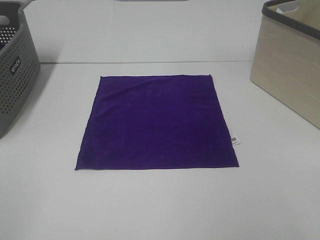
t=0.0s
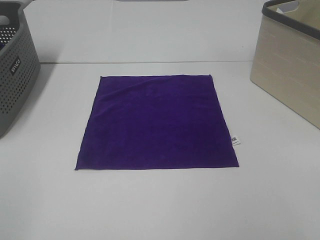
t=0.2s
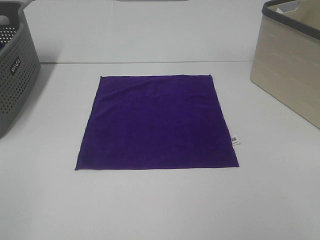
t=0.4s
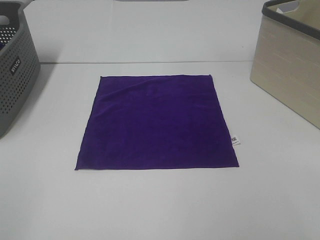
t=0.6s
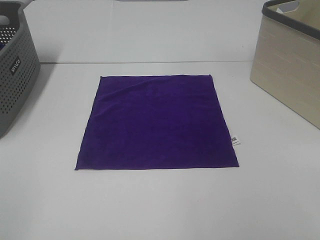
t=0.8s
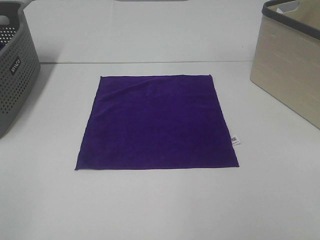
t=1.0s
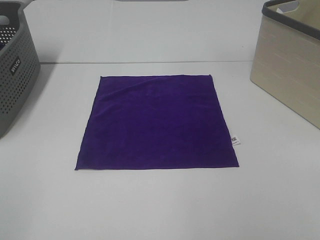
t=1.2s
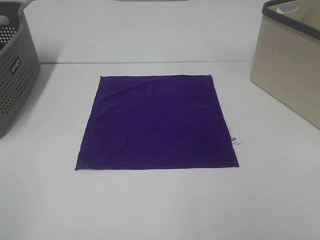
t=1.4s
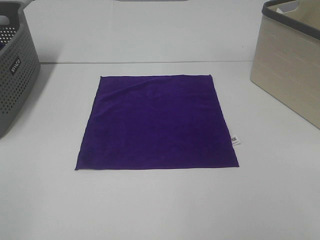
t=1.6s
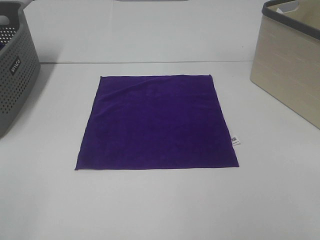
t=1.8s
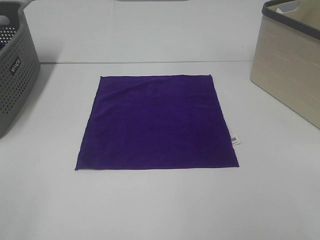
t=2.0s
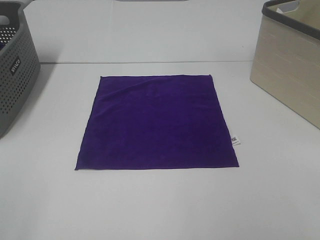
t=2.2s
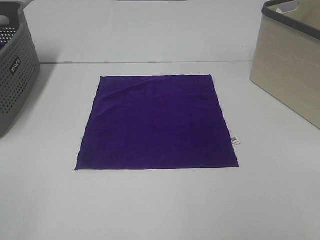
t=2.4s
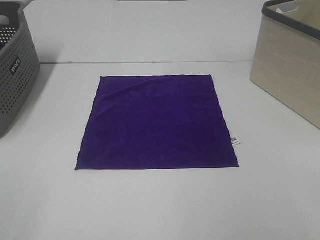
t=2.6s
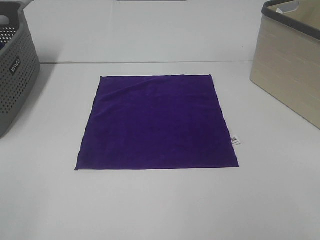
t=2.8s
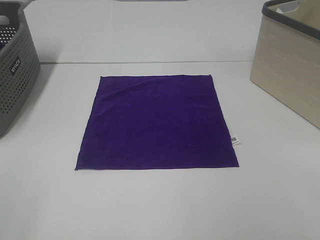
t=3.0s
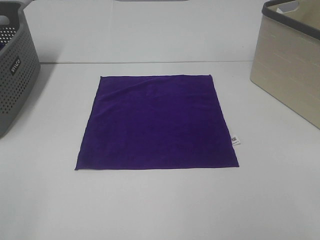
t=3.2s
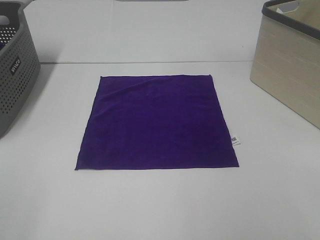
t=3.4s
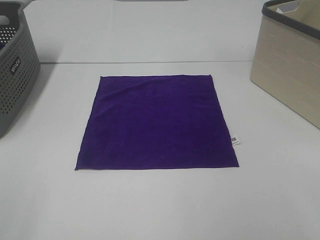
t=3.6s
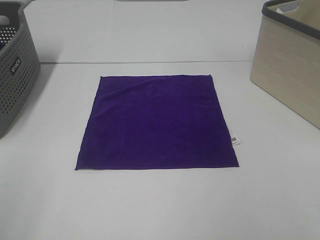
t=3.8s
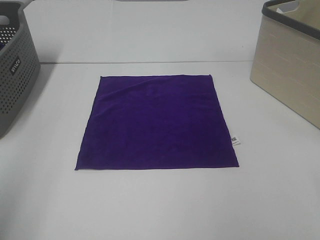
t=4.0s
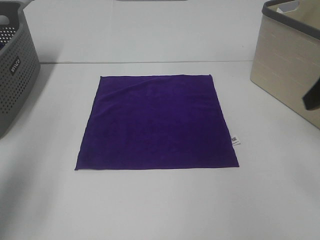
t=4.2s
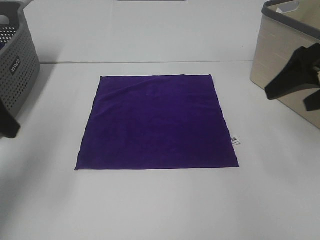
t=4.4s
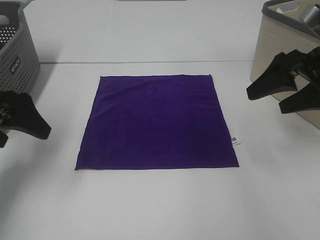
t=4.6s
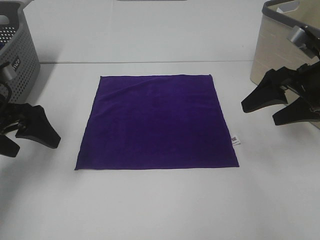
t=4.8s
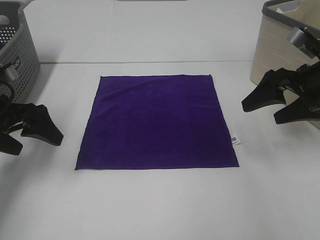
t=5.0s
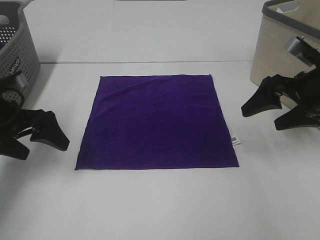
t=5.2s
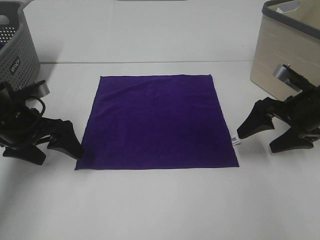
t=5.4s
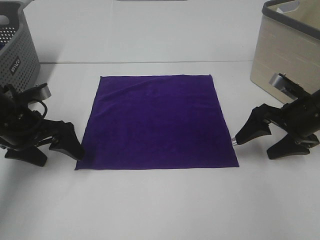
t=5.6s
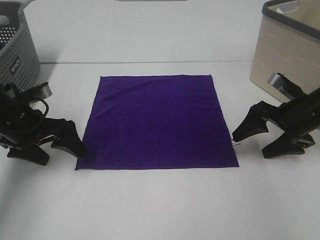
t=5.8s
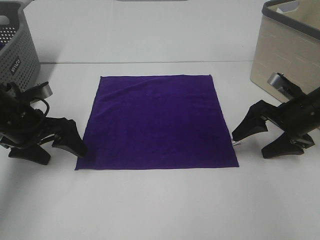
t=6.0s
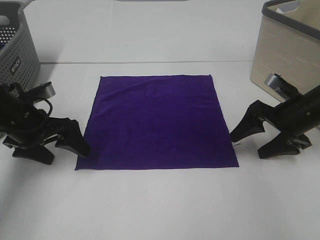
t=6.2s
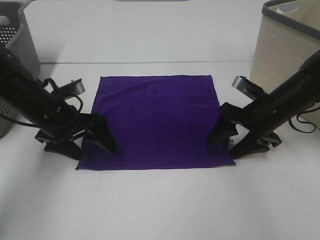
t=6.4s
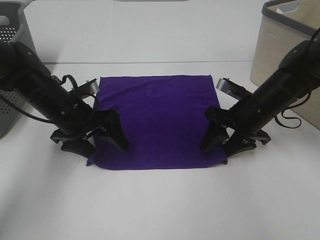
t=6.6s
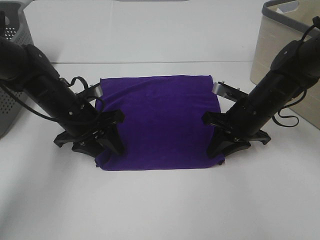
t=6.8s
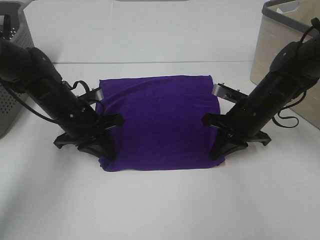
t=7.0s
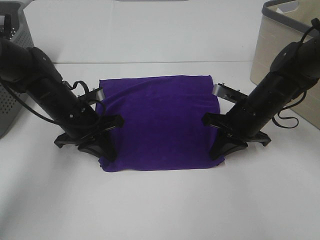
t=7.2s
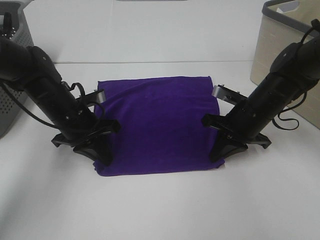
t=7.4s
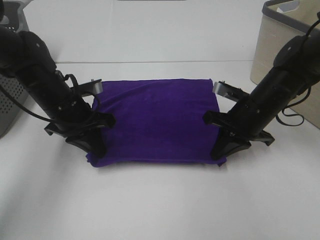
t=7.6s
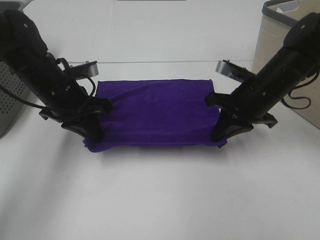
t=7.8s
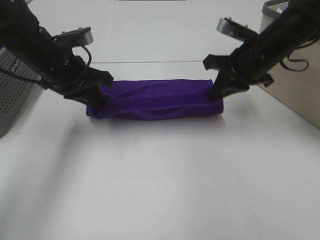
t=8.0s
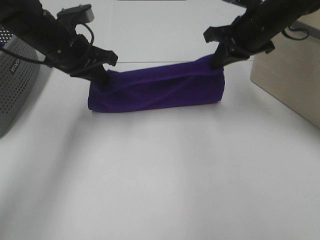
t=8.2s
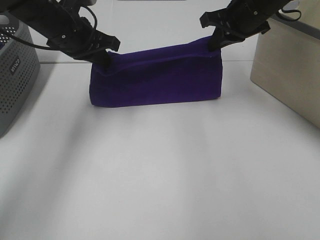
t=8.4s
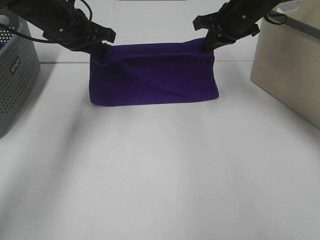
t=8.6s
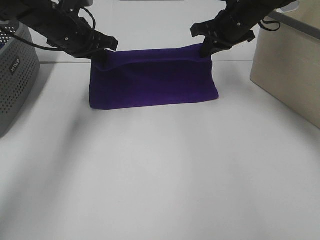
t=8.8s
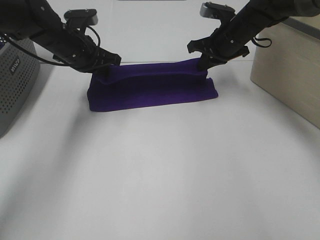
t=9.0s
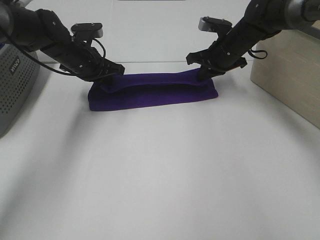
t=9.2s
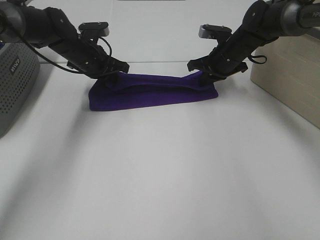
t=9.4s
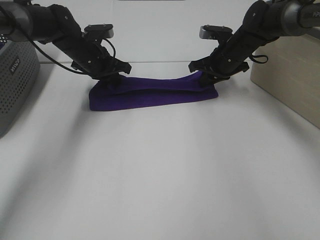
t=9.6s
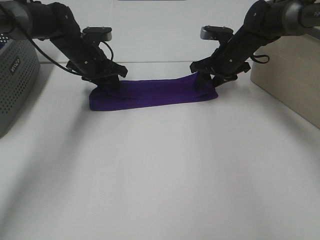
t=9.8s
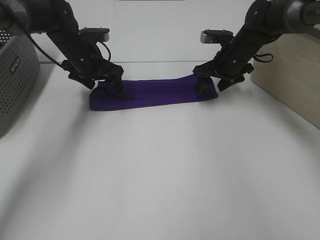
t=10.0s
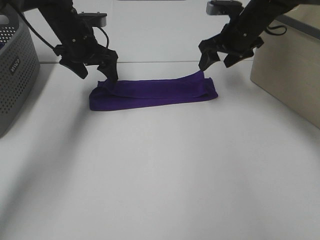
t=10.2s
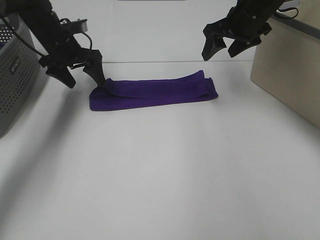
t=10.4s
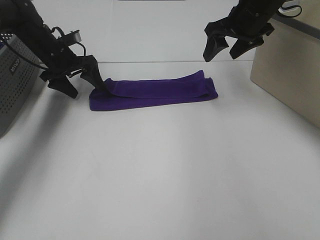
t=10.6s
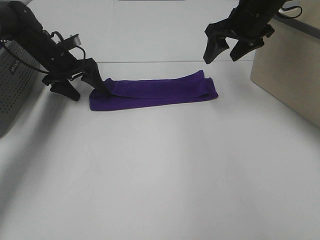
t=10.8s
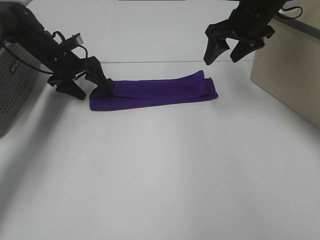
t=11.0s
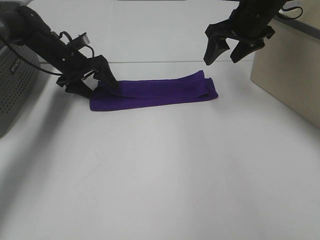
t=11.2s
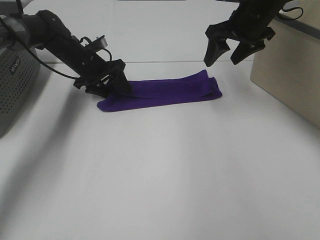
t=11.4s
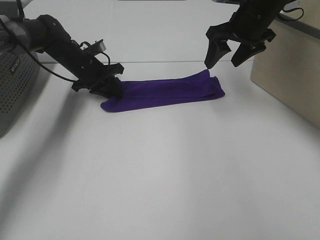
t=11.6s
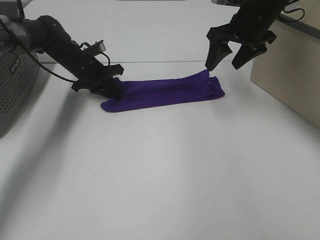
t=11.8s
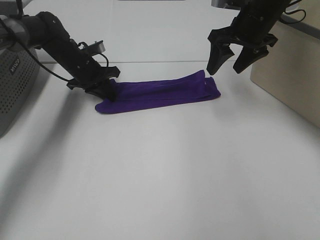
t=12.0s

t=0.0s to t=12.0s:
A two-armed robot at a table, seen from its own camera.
Task of the whole recording: Fold towels.
Step, t=0.0s to t=7.4s: Left hand: grab the bottom left corner of purple towel.
Step, t=0.0s to t=7.4s: Right hand: grab the bottom right corner of purple towel.
Step, t=7.6s to t=9.6s: Left hand: fold the purple towel up.
Step, t=7.6s to t=9.6s: Right hand: fold the purple towel up.
t=0.0s to t=3.0s: Both grippers stay about where they are.
t=3.0s to t=4.4s: The two grippers go roughly 25 cm forward.
t=4.4s to t=6.0s: The right gripper moves downward, about 15 cm. The left gripper is displaced downward and forward by some 15 cm.
t=6.0s to t=7.6s: The right gripper travels to the left by roughly 10 cm, and closes; the left gripper is displaced to the right by approximately 10 cm, and closes.
t=7.6s to t=9.0s: Both grippers move forward, about 15 cm.
t=9.0s to t=10.4s: The right gripper travels upward by some 5 cm, and opens up. Meanwhile the left gripper moves about 5 cm, and opens its fingers.
t=10.4s to t=12.0s: The left gripper goes some 5 cm downward, and closes its fingers.

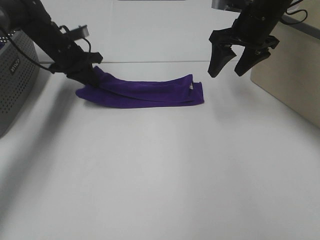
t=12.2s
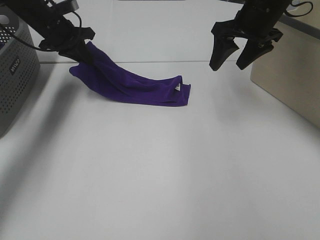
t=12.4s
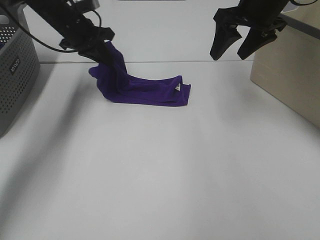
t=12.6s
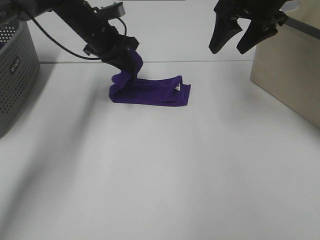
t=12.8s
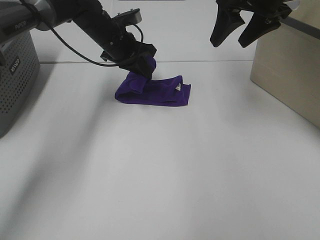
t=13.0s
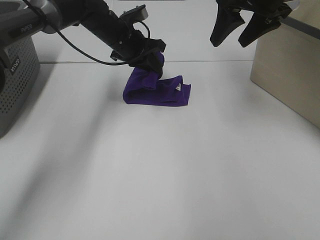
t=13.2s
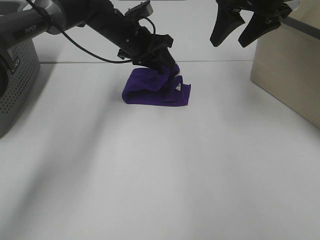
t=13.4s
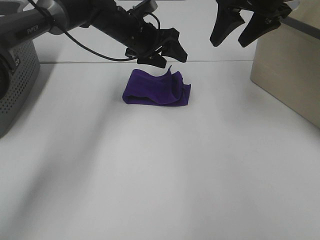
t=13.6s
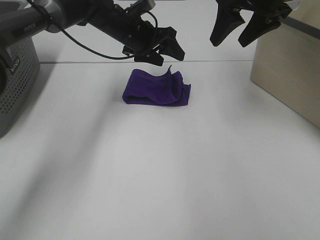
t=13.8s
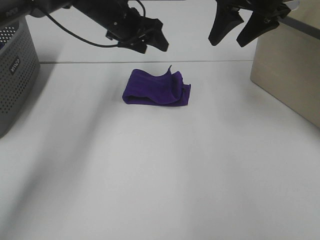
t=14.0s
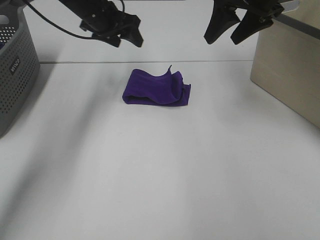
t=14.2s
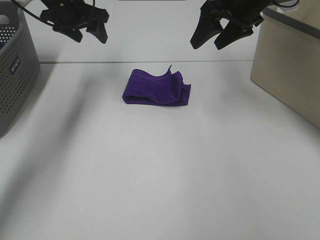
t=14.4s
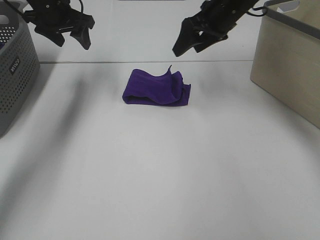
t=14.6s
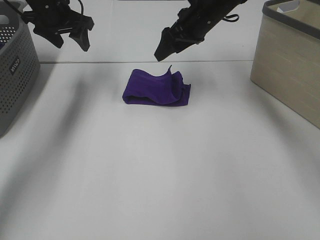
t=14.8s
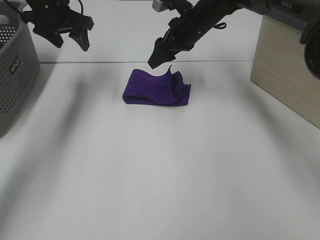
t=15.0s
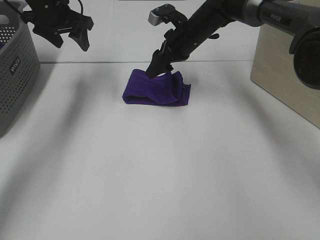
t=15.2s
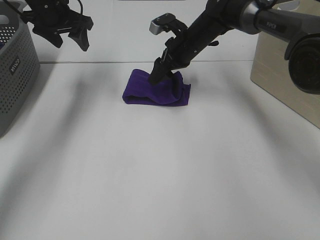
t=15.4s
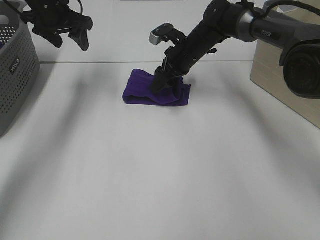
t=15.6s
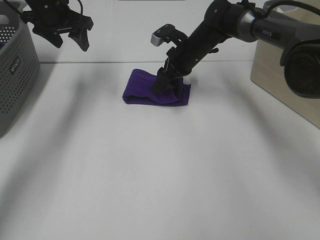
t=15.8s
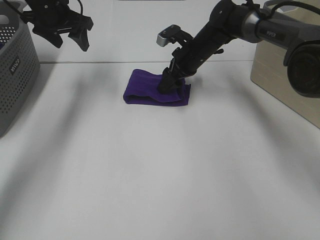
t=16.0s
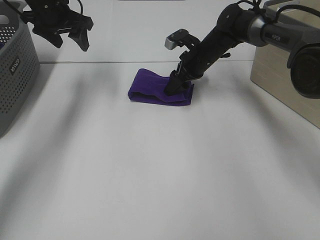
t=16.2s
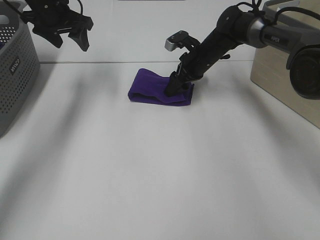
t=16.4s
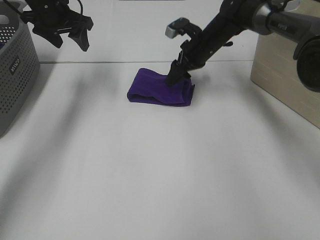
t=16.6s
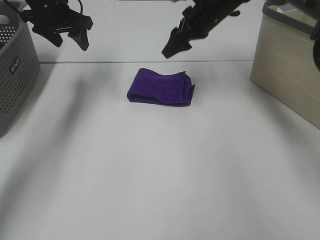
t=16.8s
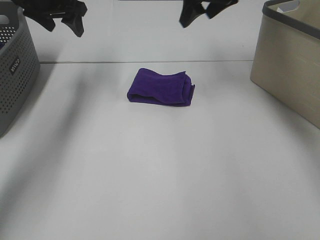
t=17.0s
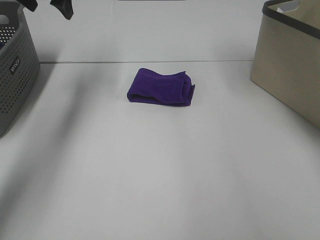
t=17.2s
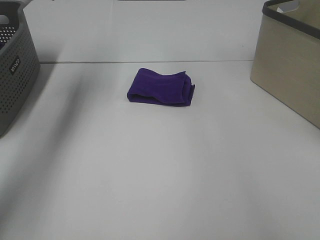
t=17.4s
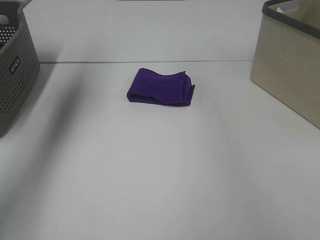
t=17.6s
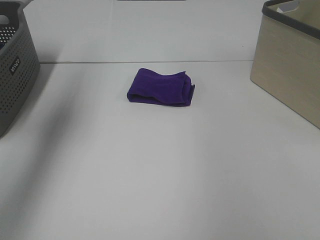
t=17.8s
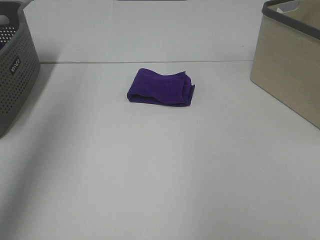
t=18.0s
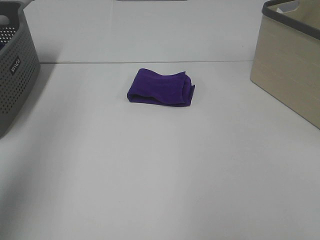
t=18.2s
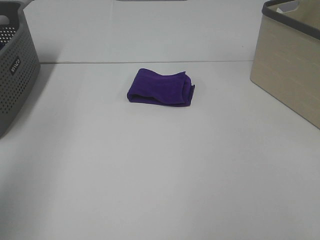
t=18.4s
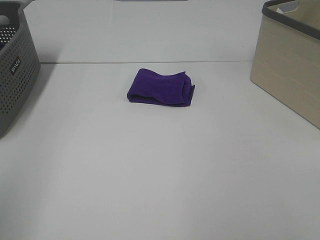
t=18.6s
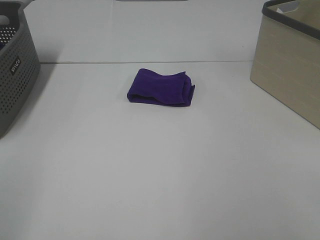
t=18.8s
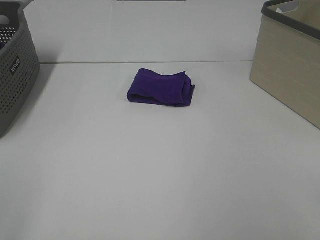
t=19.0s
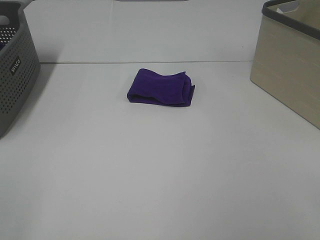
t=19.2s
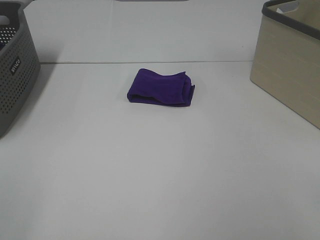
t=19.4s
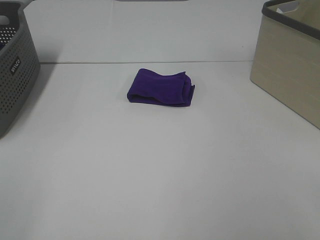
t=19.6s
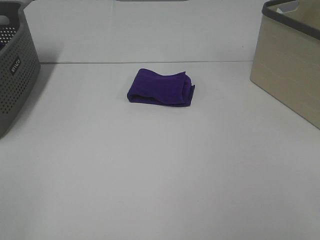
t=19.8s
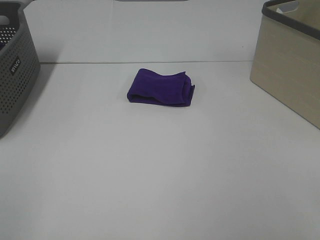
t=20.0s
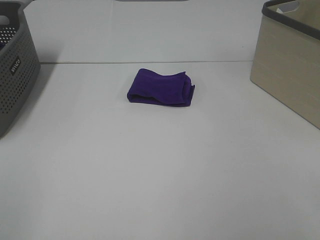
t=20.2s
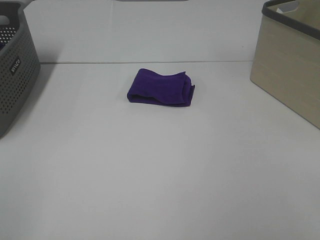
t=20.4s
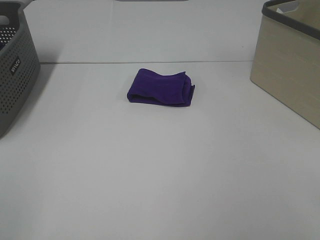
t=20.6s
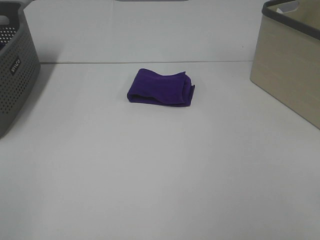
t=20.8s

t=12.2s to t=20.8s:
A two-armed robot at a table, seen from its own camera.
Task of the whole recording: Fold towels.
Step, t=13.4s to t=16.6s: Right hand: adjust the purple towel.
t=12.2s to t=13.6s: The left gripper goes approximately 15 cm to the right, and opens. The right gripper is displaced upward by some 5 cm.
t=13.6s to t=15.0s: The left gripper shifts roughly 15 cm to the left. Meanwhile the right gripper is displaced downward, to the left and forward by roughly 20 cm.
t=16.6s to t=18.0s: The left gripper moves backward and upward, about 35 cm. The right gripper is displaced backward, upward and to the right by about 50 cm.
t=18.0s to t=19.4s: The left gripper travels backward and downward by about 30 cm.

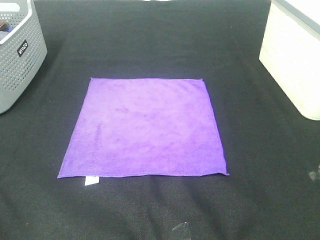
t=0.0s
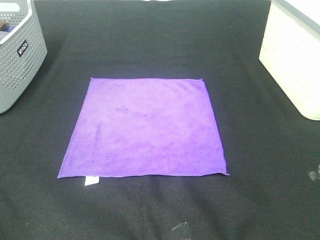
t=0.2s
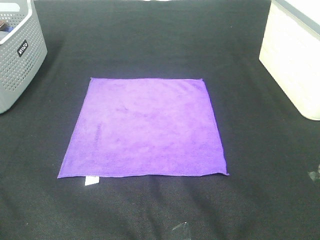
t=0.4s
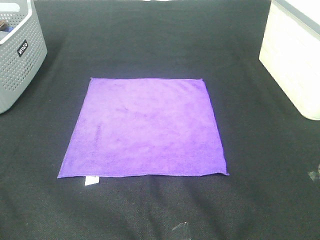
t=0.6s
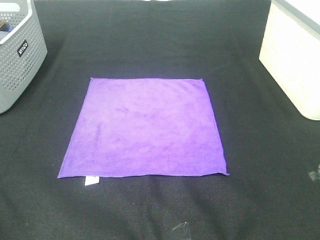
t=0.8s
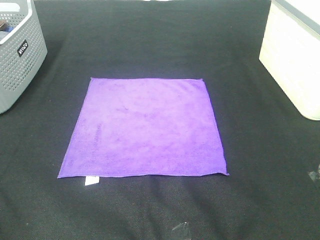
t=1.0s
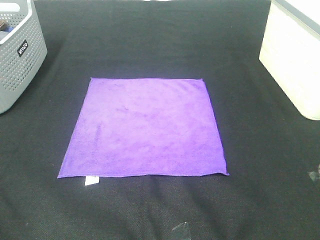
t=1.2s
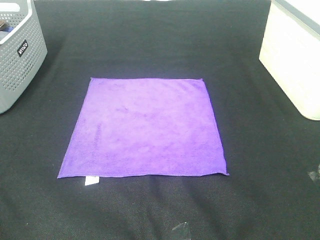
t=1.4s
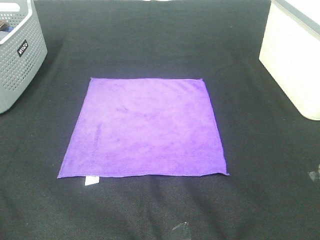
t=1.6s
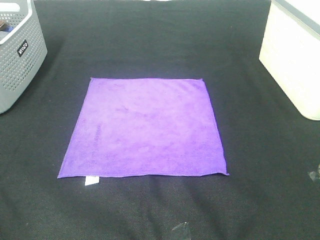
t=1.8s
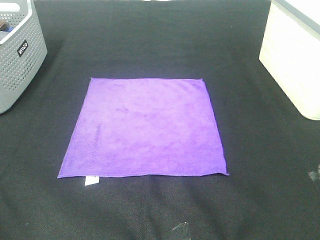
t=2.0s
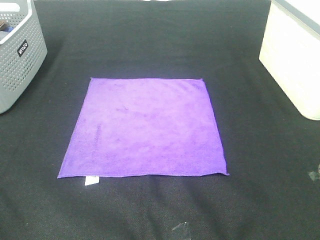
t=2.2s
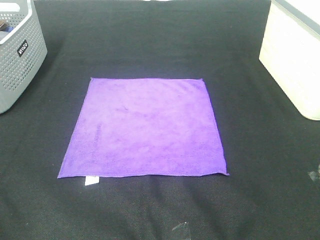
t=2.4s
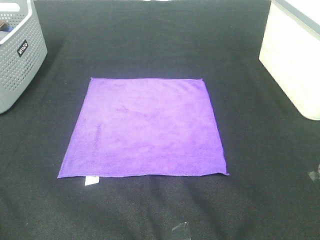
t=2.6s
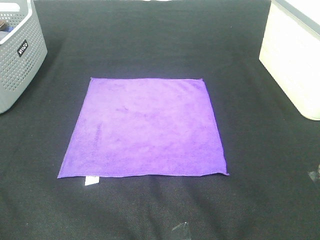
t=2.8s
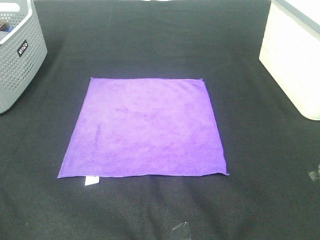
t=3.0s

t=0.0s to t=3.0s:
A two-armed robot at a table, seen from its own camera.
Task of the whole recording: Fold towels.
t=0.0s to t=3.0s: Both grippers stay about where they are.
